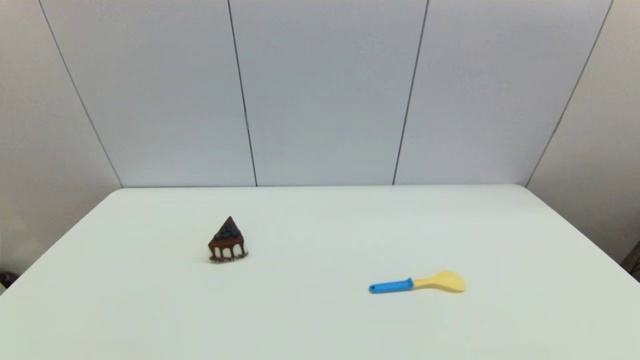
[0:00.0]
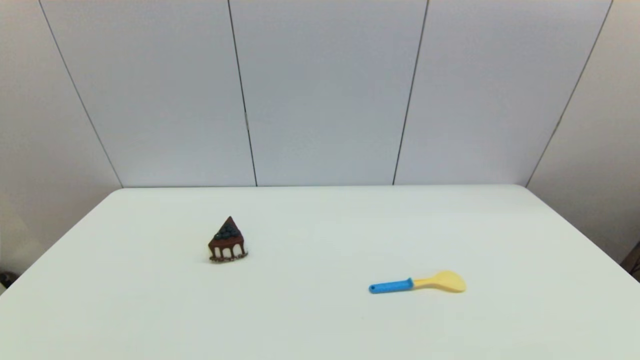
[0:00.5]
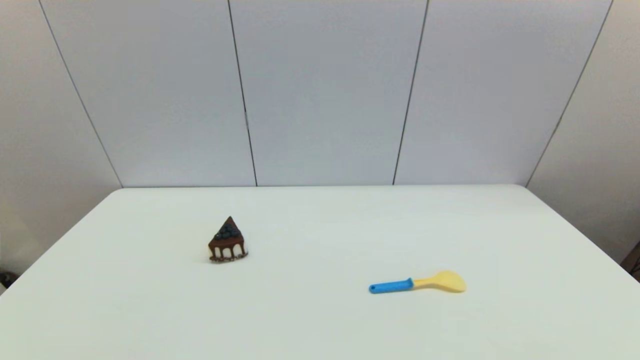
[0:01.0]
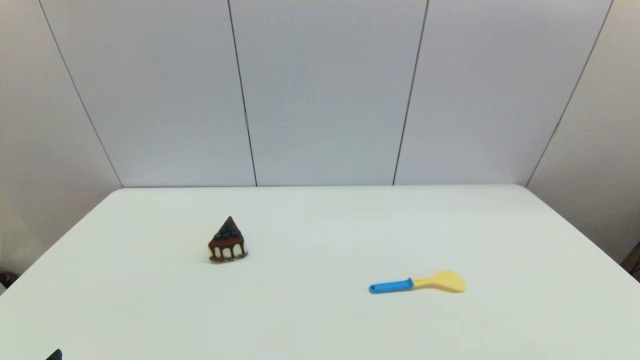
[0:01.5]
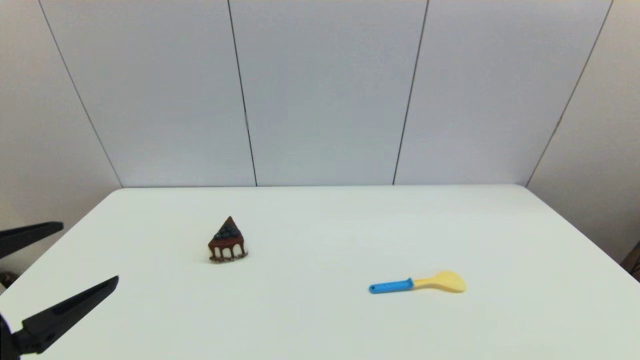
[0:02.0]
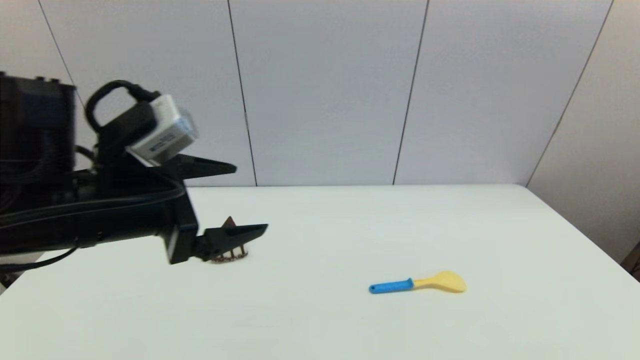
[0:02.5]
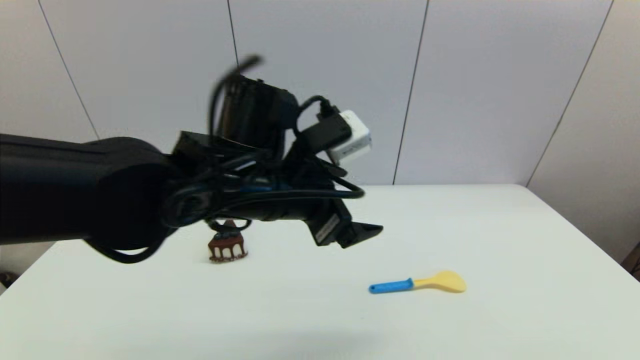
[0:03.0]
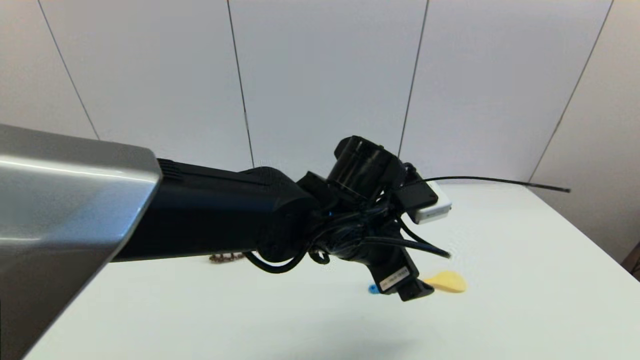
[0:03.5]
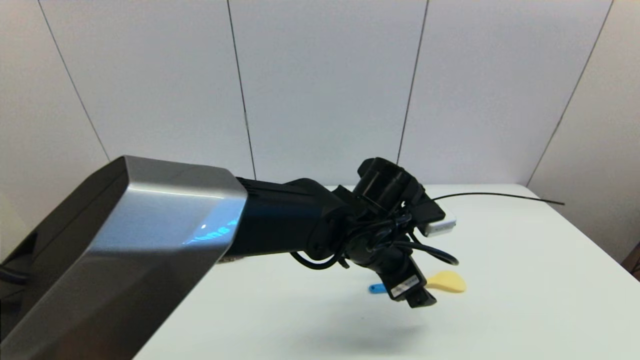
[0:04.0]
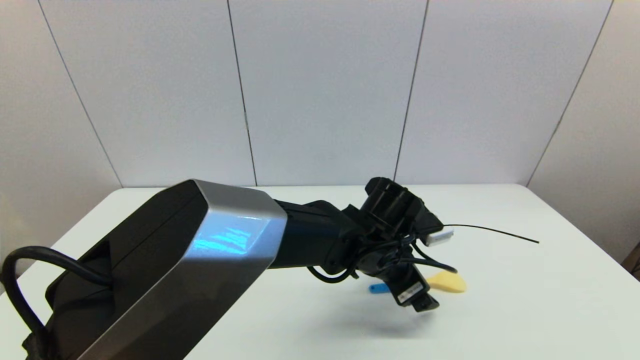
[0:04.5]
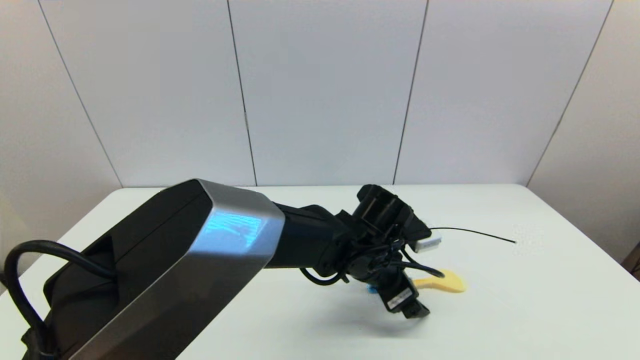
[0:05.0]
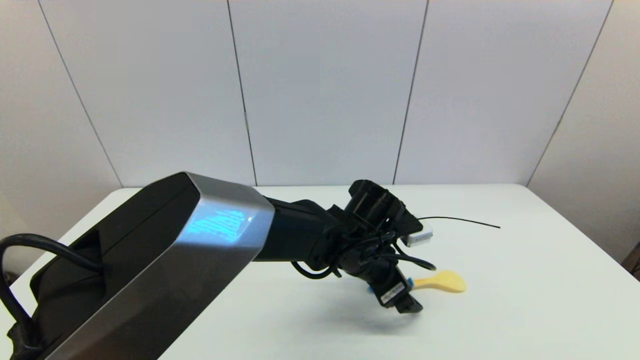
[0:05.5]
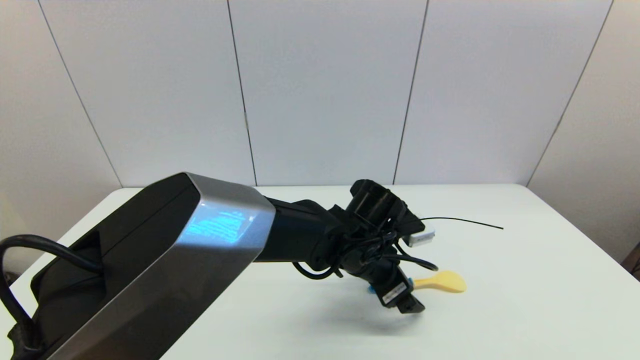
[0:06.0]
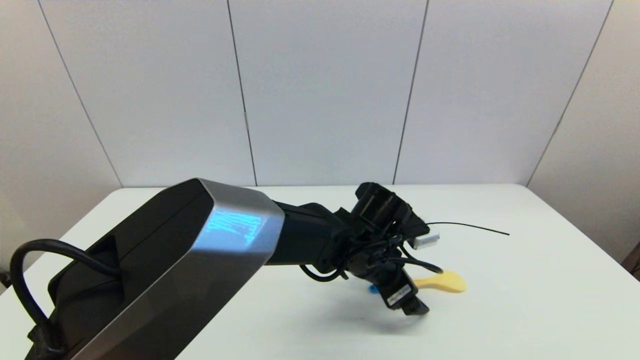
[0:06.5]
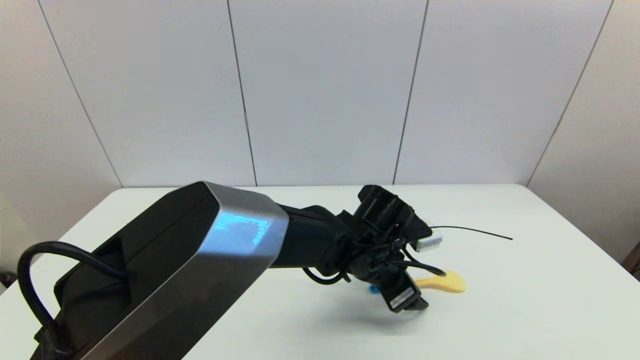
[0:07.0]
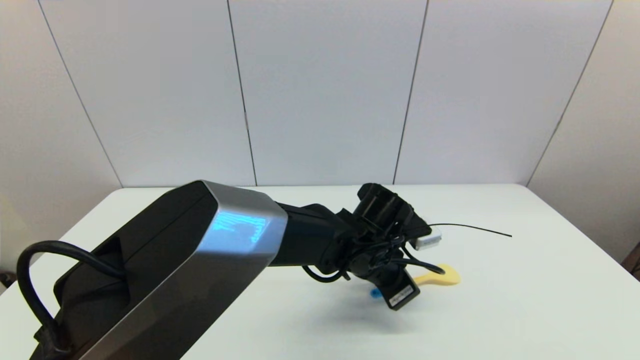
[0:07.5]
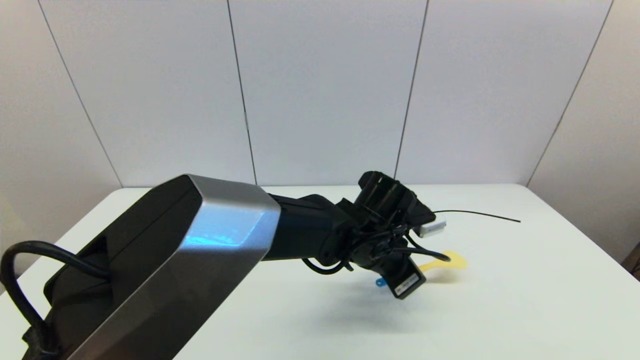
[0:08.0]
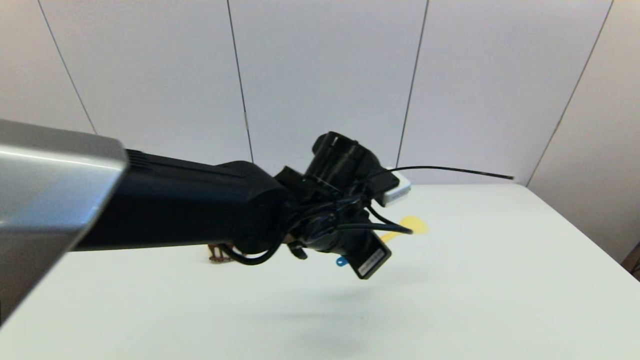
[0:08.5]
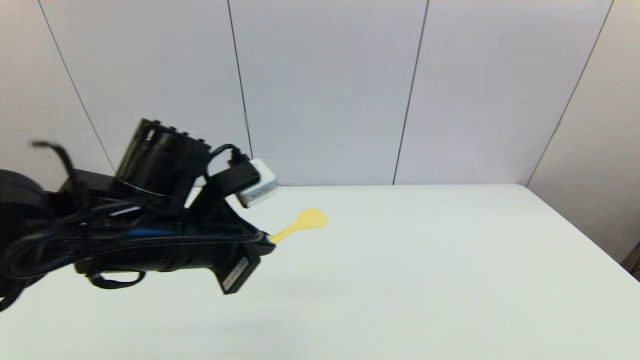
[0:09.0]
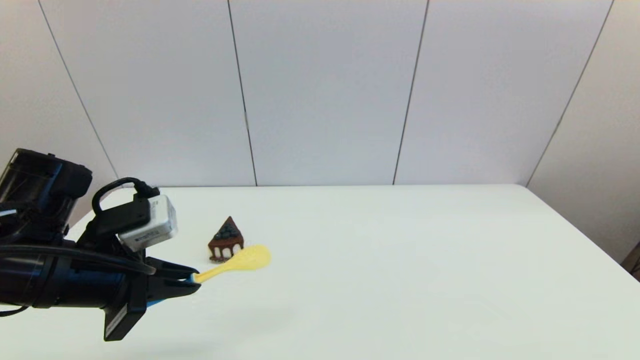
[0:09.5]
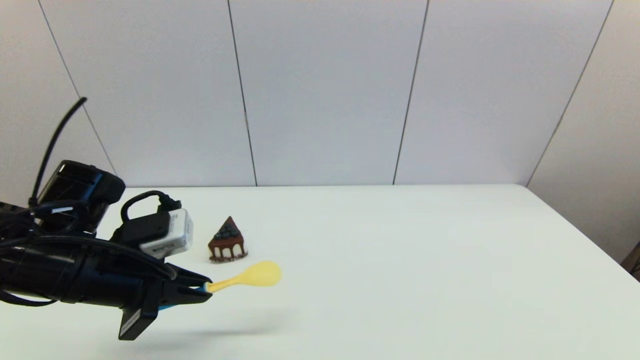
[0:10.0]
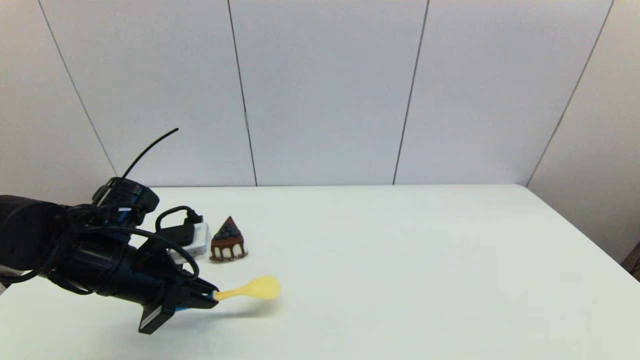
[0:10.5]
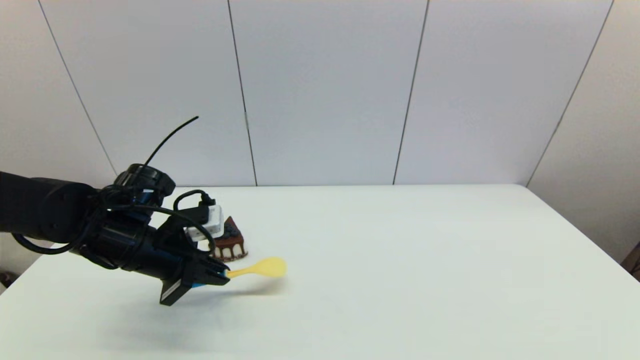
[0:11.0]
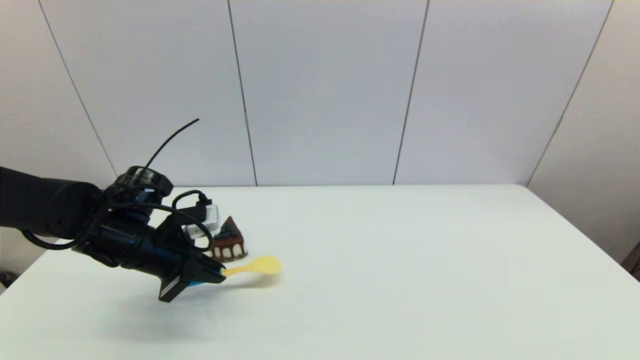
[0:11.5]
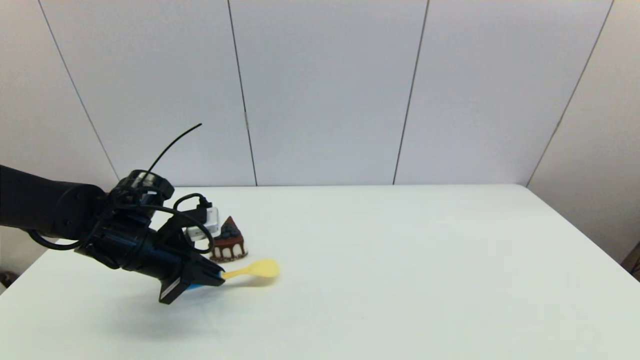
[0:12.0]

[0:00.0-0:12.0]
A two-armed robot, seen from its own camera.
Step, 0:01.5 to 0:07.5: Grasp the spoon with left gripper.
0:00.0 to 0:02.0: The left gripper travels upward and forward by roughly 20 cm.
0:02.0 to 0:04.0: The left gripper goes about 40 cm to the right and forward.
0:04.0 to 0:06.0: The grippers make only small movements.
0:06.0 to 0:08.0: The left gripper closes up.
0:08.0 to 0:10.0: The left gripper shifts about 30 cm to the left.
0:10.0 to 0:12.0: The left gripper moves forward and downward, roughly 10 cm.

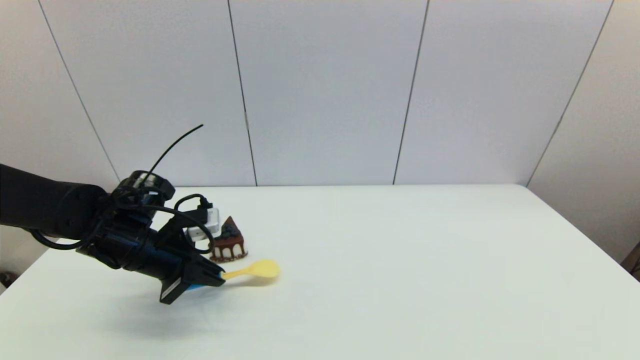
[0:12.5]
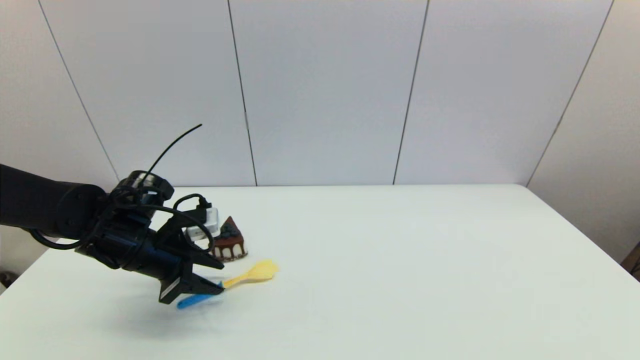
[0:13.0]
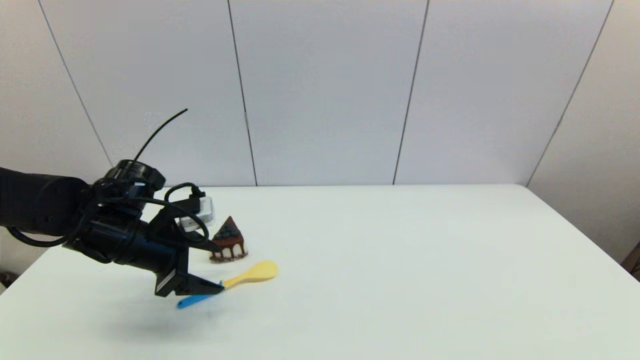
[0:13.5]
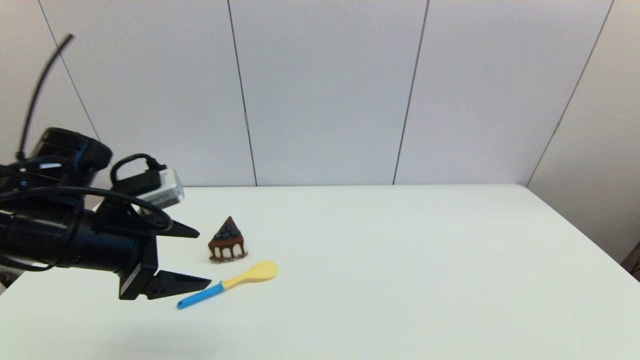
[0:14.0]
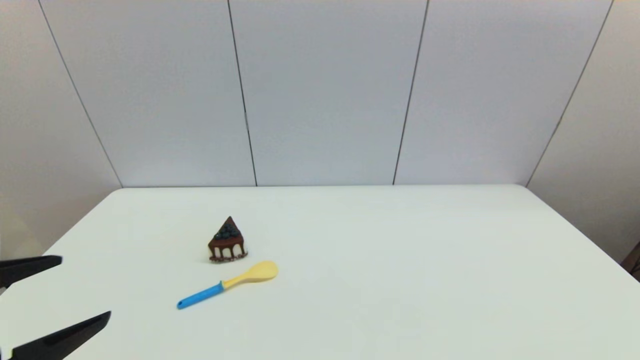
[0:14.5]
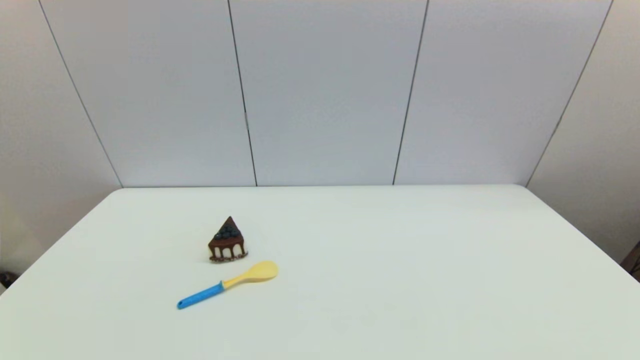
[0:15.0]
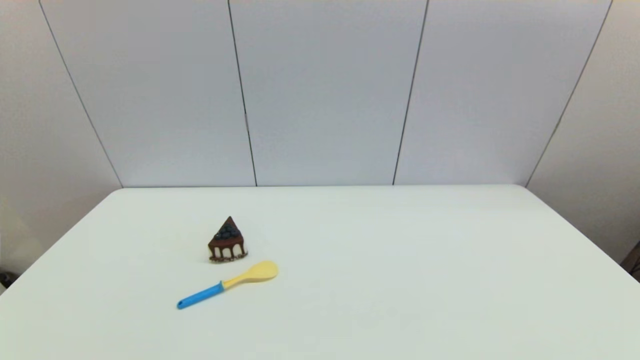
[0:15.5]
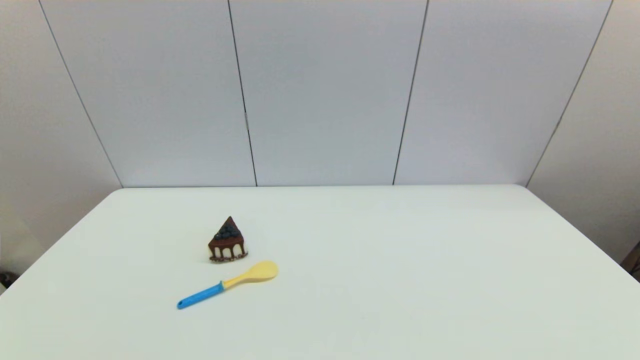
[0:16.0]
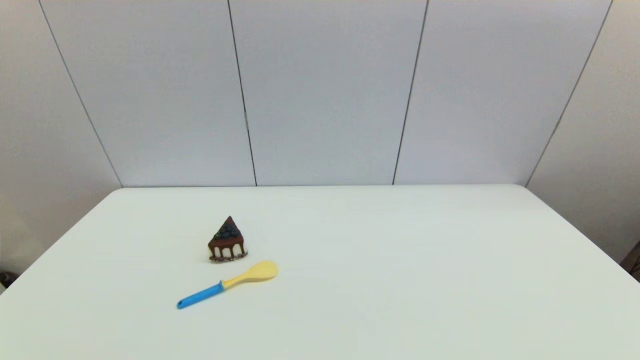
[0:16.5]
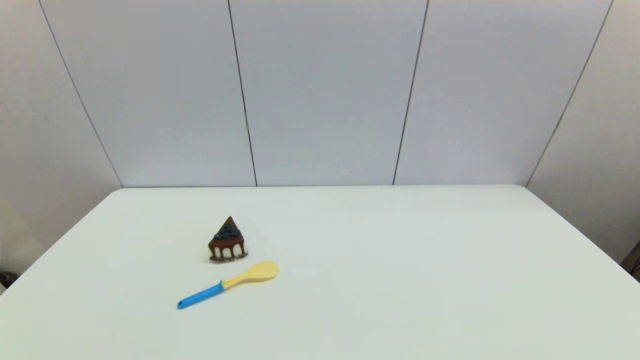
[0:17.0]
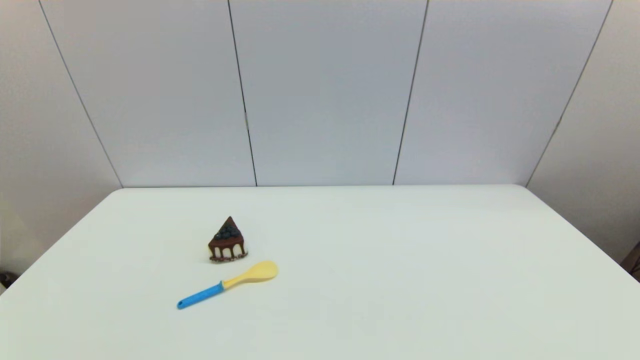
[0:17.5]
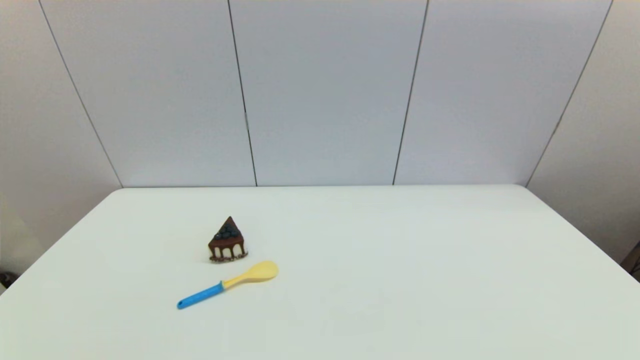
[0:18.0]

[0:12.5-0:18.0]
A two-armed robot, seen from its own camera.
0:12.5 to 0:14.5: The left gripper goes approximately 25 cm backward and upward, and opens its fingers.
0:14.5 to 0:16.0: The left gripper travels downward and backward by approximately 15 cm.
